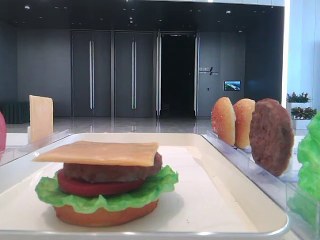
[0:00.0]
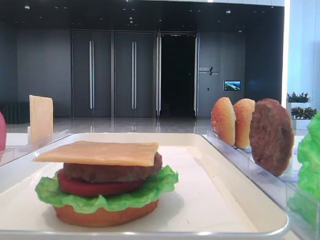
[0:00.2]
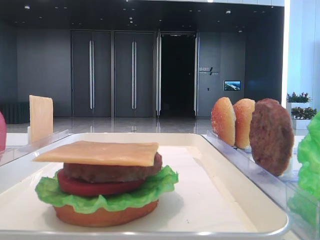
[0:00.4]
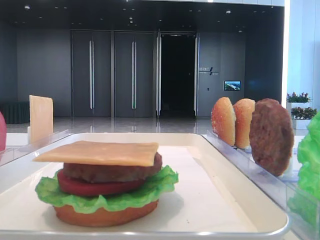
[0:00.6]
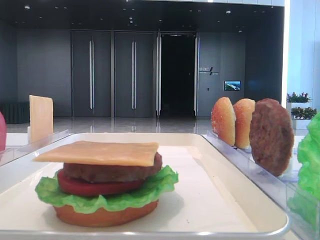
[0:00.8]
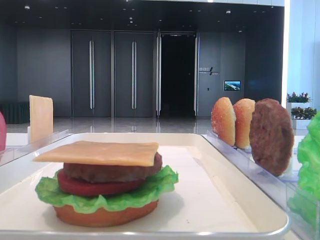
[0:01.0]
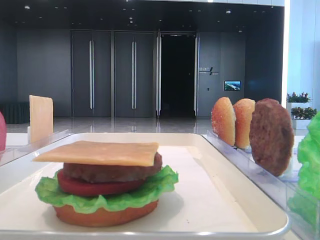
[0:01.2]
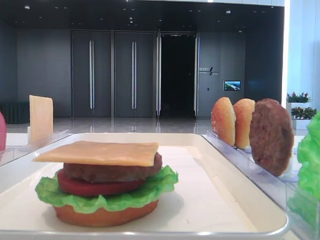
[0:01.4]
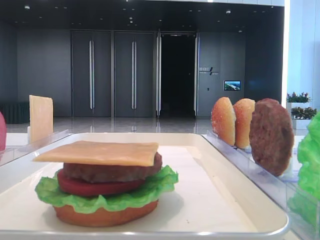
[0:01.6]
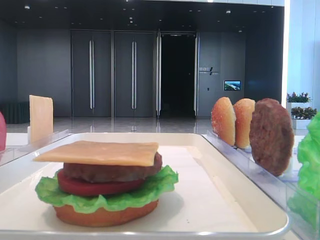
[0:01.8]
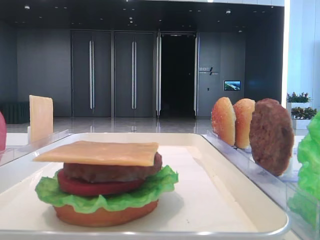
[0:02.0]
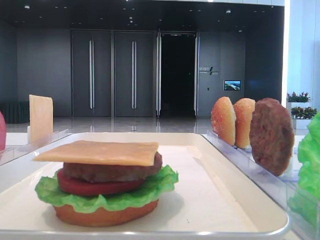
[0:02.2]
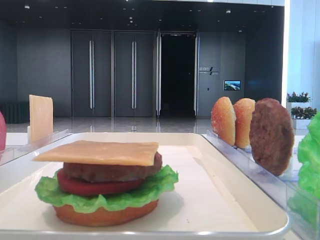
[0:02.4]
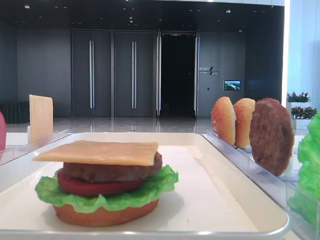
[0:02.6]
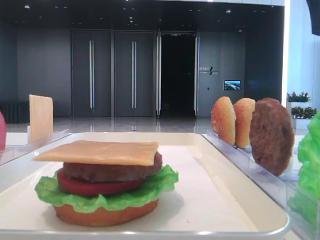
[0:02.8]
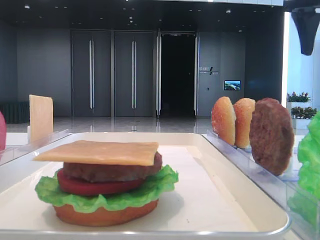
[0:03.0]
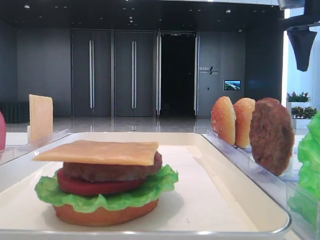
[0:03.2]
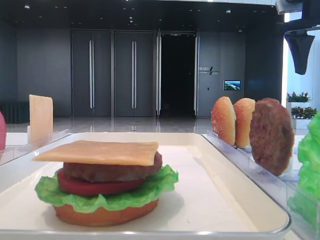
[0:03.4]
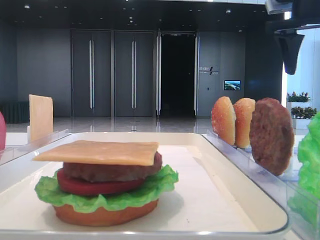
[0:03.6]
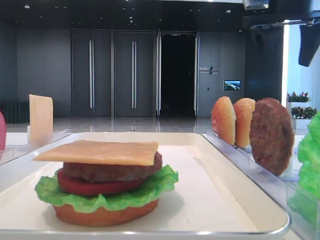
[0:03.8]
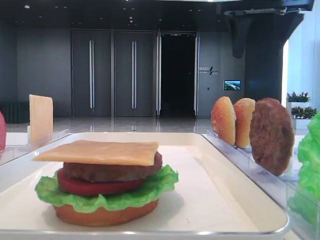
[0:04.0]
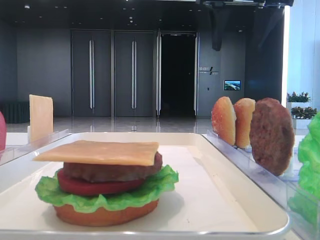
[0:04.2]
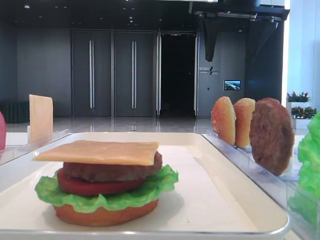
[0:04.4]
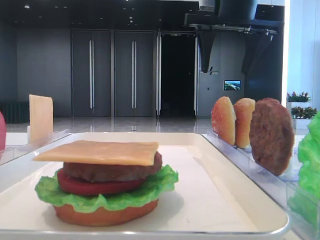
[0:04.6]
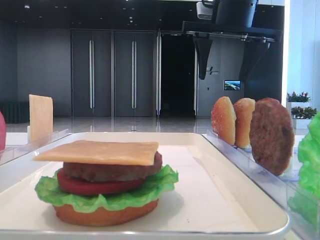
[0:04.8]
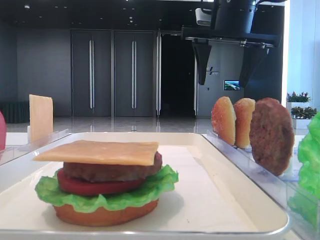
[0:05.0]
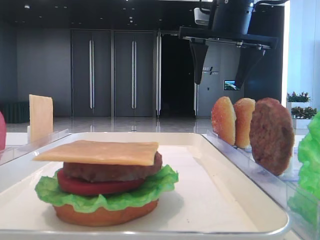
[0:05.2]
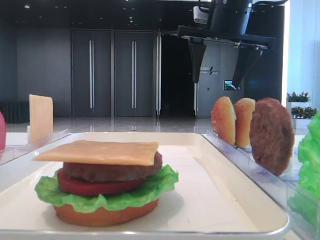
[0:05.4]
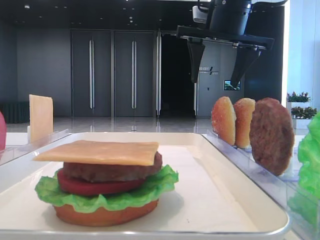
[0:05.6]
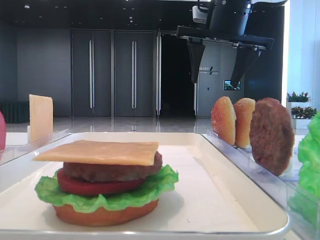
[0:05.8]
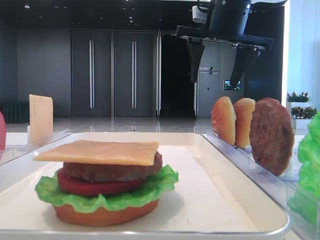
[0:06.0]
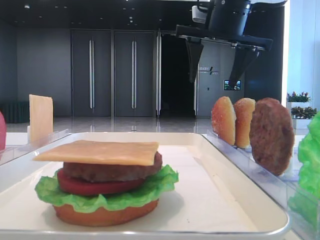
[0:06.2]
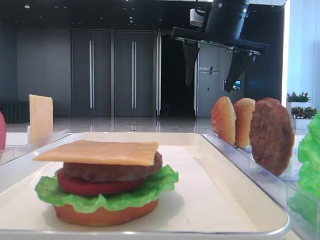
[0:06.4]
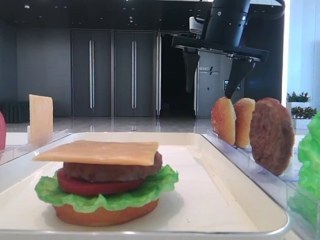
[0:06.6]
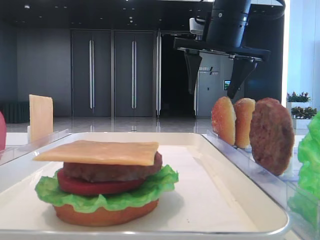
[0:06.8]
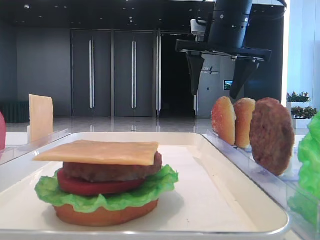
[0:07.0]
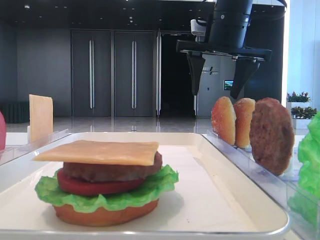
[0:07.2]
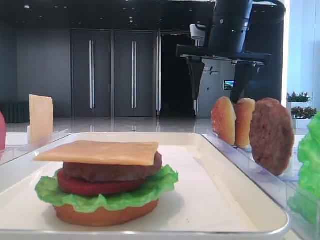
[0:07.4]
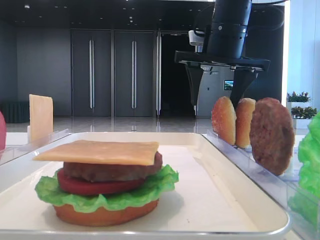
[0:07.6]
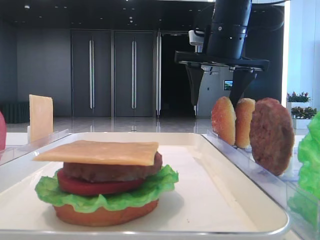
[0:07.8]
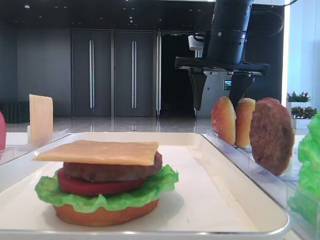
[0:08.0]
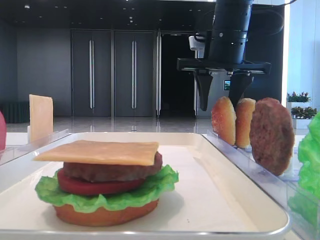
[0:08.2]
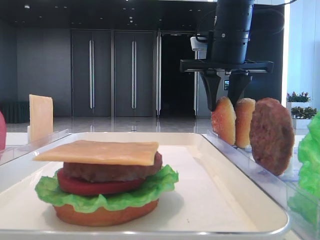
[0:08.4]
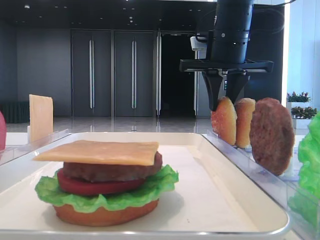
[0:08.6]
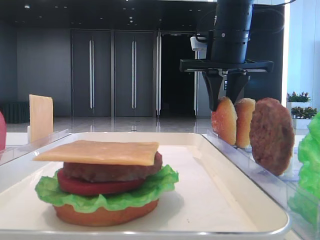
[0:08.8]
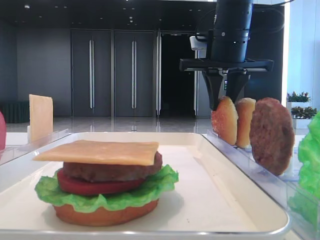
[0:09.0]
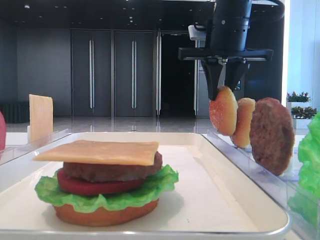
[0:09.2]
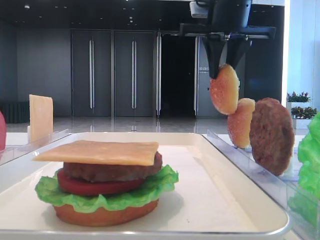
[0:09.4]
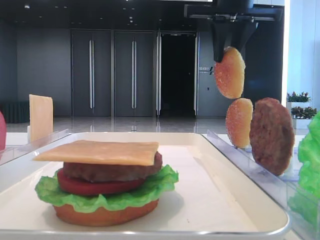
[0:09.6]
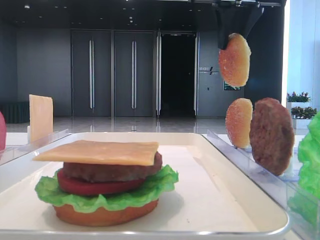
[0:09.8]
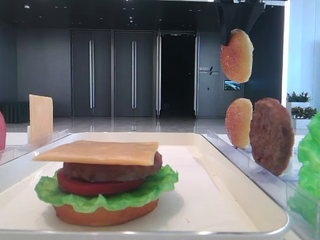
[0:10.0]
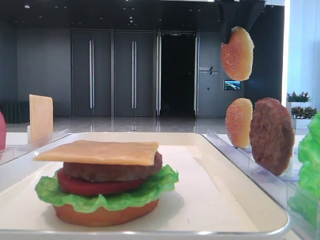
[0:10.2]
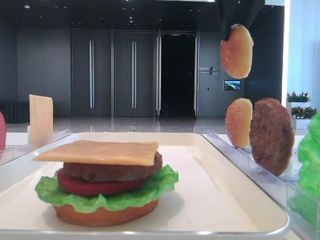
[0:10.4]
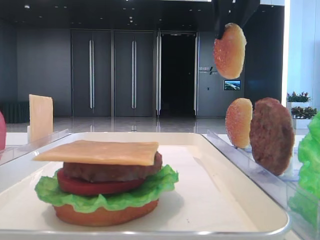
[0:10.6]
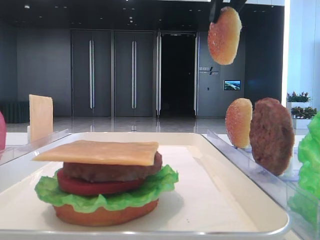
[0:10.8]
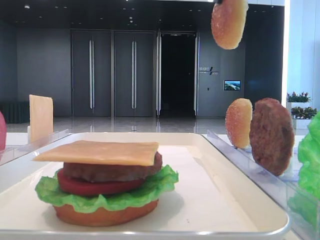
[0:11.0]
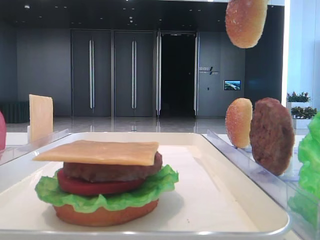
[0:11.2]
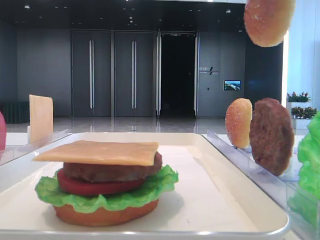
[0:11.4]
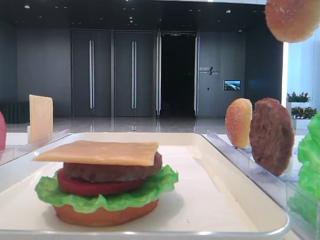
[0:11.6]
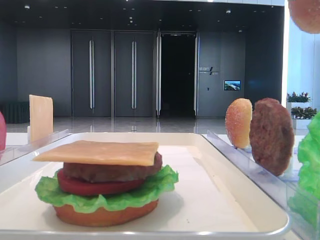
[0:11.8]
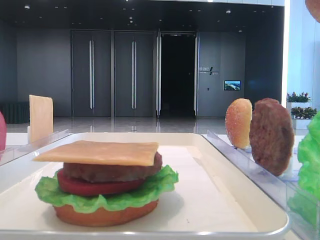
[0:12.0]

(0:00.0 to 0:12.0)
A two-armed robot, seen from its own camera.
Step, 0:00.0 - 0:08.8: Pick up the top bread slice with the right hand.
0:01.6 - 0:03.0: The right gripper heads forward, covering roughly 35 cm.
0:03.0 - 0:04.4: The right gripper is displaced to the left by approximately 15 cm.
0:04.4 - 0:06.0: The grippers move only a little.
0:06.0 - 0:07.6: The grippers move only a little.
0:07.6 - 0:09.0: The right gripper closes its fingers.
0:09.0 - 0:10.4: The right gripper moves upward, roughly 10 cm.
0:10.4 - 0:12.0: The right gripper goes some 20 cm backward.

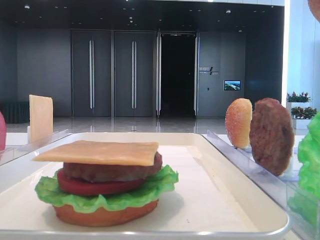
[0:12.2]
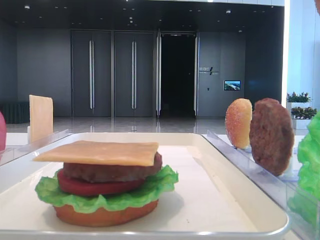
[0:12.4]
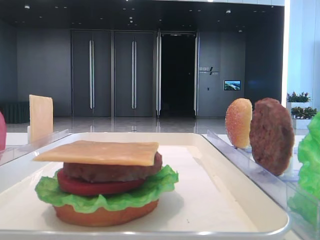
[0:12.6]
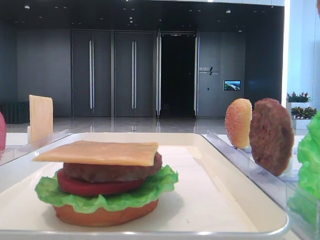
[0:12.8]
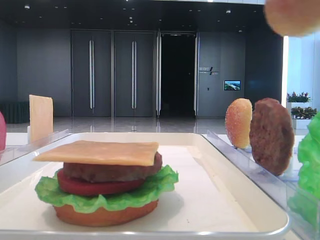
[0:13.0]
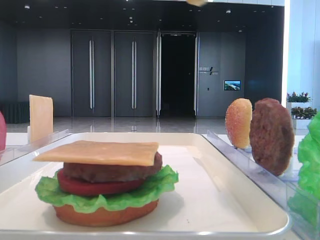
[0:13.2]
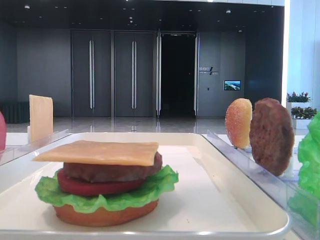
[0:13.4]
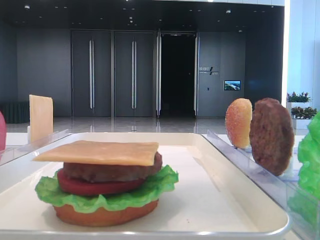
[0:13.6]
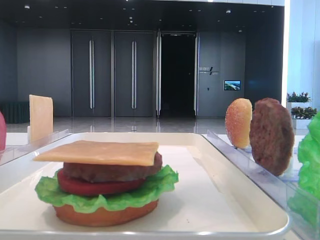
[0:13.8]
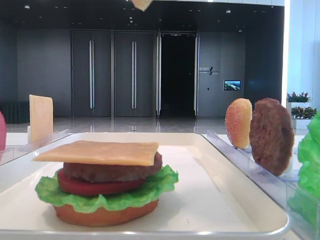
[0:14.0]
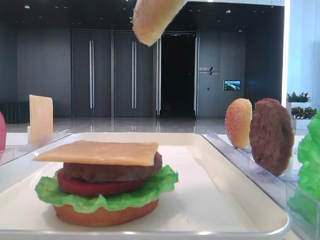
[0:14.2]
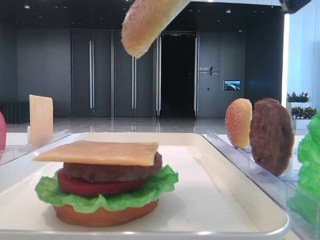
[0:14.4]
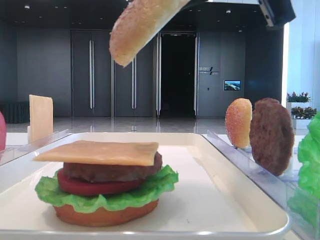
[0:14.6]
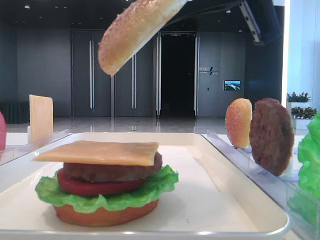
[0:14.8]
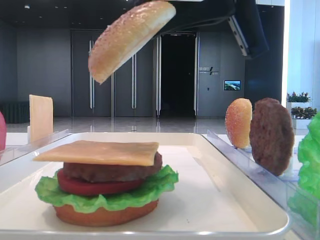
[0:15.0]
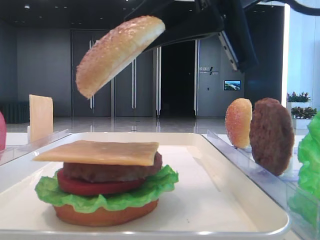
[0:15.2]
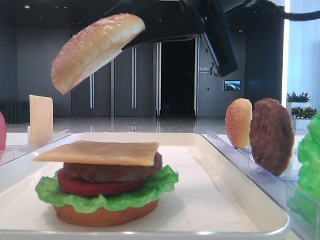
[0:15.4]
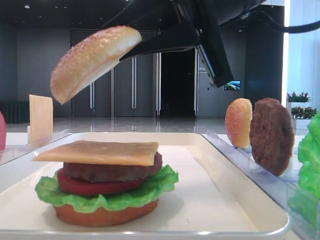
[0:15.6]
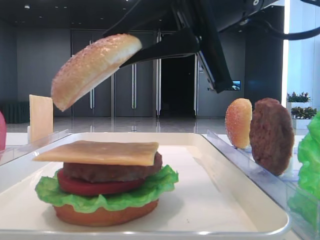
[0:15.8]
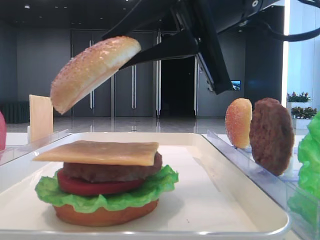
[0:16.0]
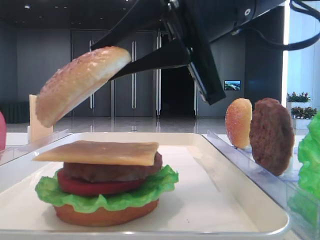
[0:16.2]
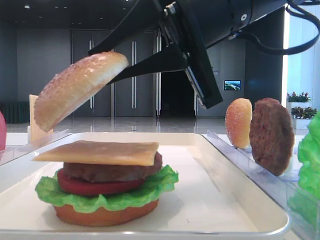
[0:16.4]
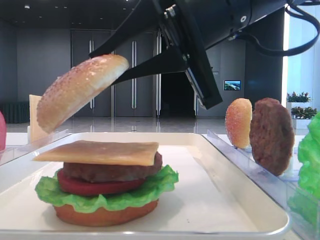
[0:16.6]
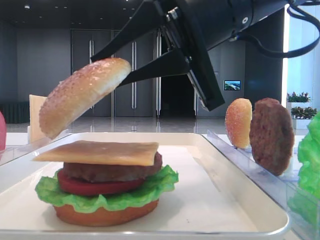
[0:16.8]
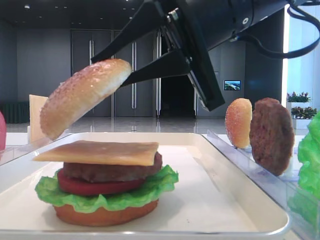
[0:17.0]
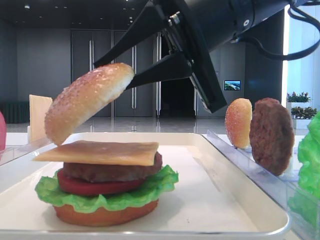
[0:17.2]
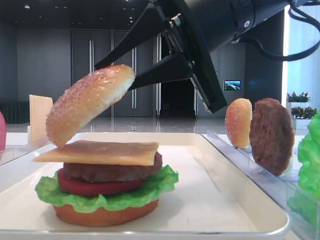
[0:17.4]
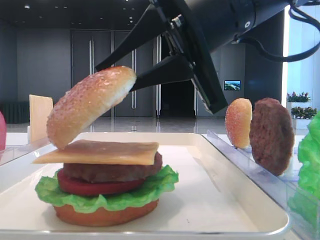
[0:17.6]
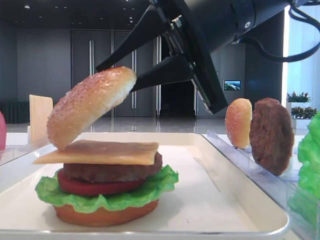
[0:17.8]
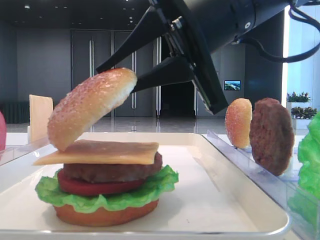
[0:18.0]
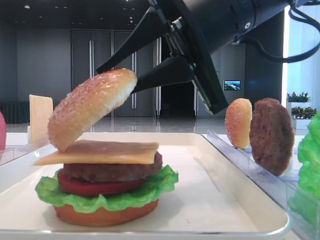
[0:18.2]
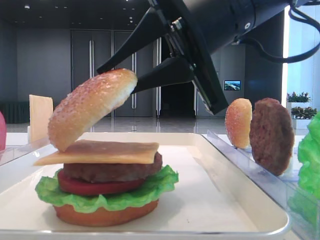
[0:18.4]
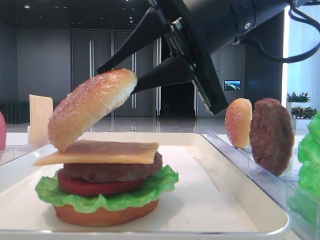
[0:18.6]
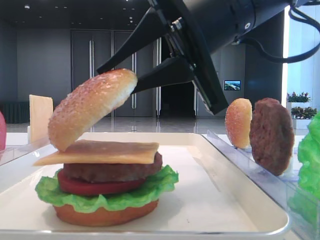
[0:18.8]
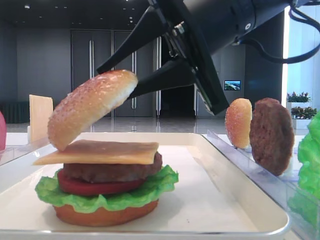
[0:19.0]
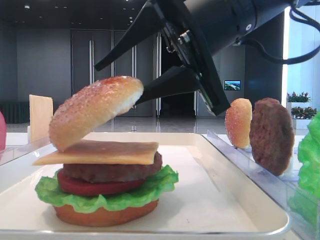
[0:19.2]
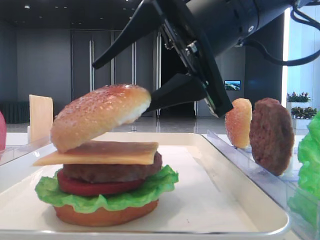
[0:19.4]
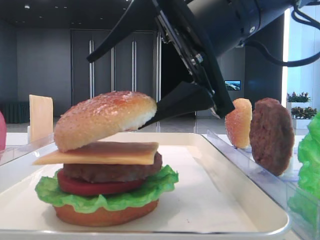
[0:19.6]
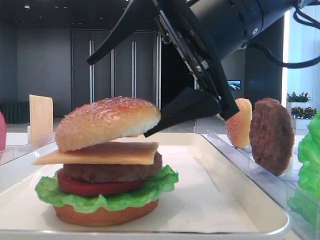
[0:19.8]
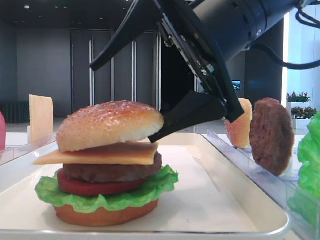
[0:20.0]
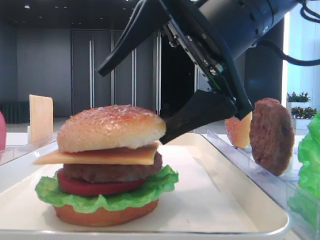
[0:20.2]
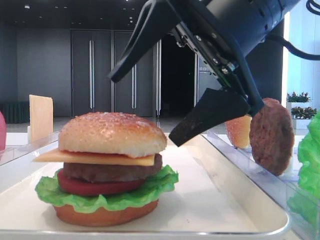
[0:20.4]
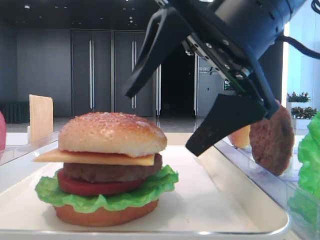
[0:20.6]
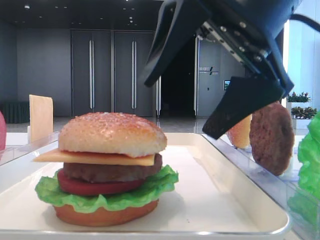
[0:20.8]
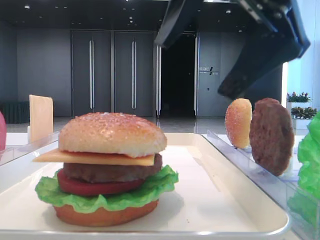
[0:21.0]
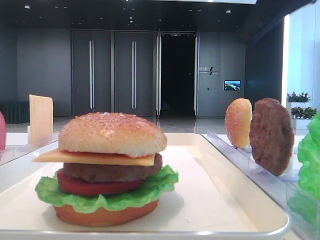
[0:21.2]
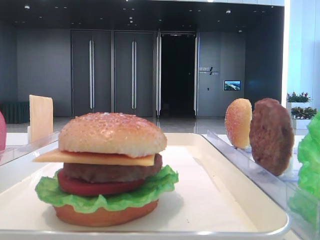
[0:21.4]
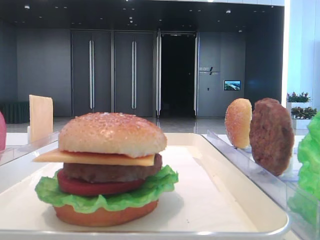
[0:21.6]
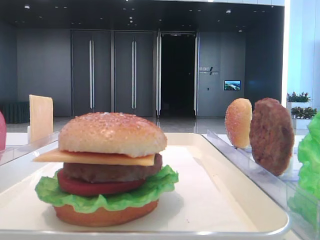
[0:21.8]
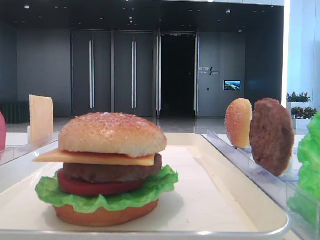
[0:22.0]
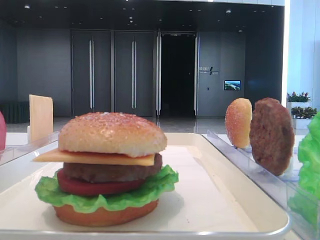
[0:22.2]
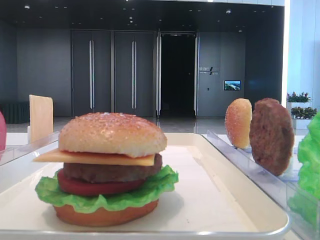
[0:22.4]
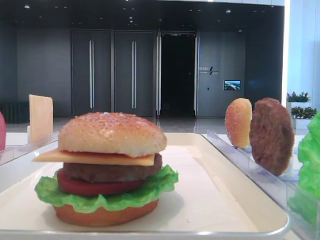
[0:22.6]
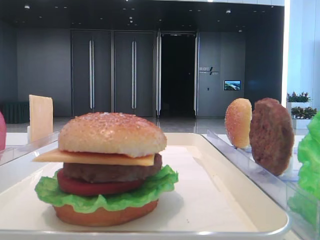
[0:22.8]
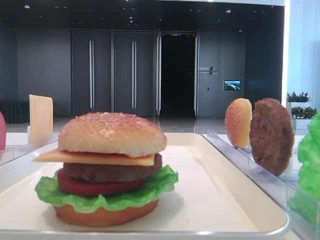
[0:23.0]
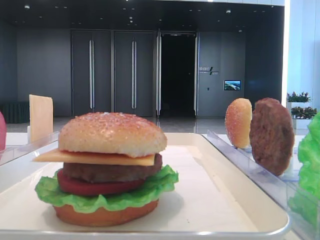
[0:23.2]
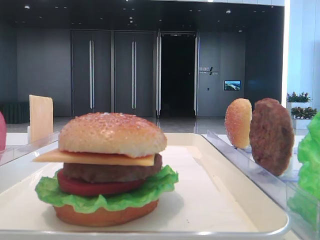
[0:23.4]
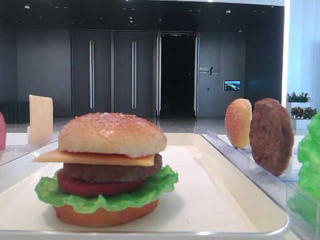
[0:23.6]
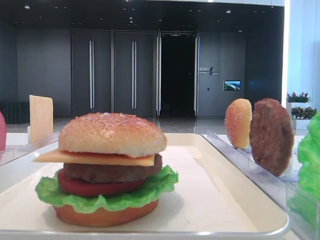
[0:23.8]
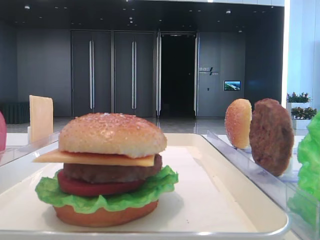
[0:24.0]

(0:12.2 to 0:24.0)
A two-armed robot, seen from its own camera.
Step, 0:12.2 - 0:20.2: Place the top bread slice on the cheese with the right hand.
0:12.2 - 0:13.6: The right gripper heads to the left, covering roughly 10 cm.
0:13.6 - 0:15.2: The right gripper travels downward by about 10 cm.
0:15.2 - 0:18.2: There are only small adjustments of the grippers.
0:18.2 - 0:19.6: The right gripper opens up.
0:19.6 - 0:21.0: The right gripper ends up roughly 5 cm from where it was.
0:21.0 - 0:22.6: The right gripper moves to the right and upward, some 25 cm.
0:22.6 - 0:24.0: The right gripper heads backward, covering about 25 cm.
